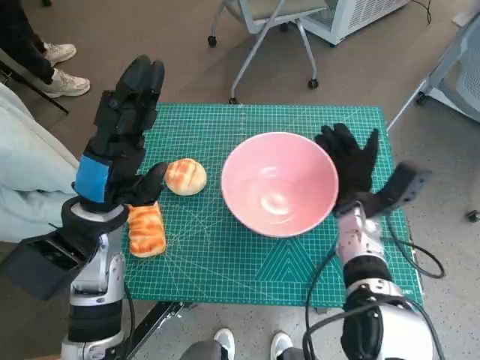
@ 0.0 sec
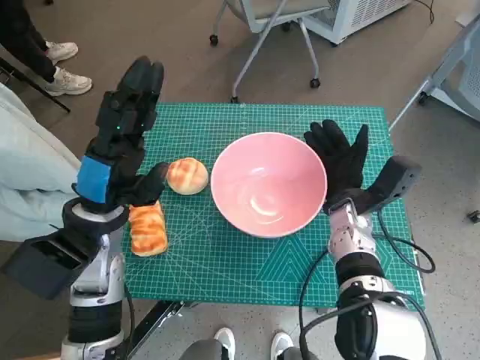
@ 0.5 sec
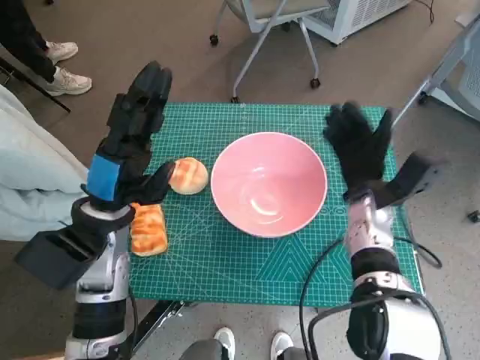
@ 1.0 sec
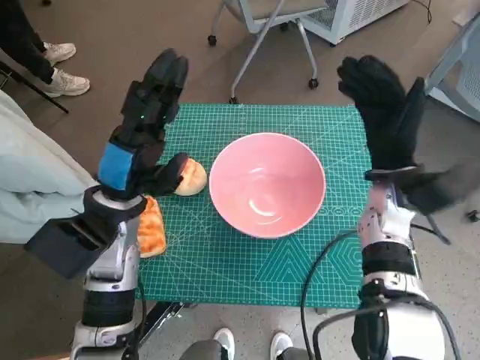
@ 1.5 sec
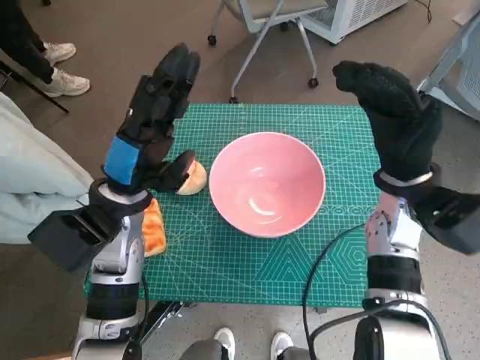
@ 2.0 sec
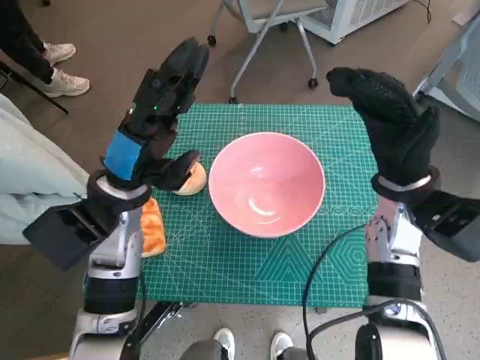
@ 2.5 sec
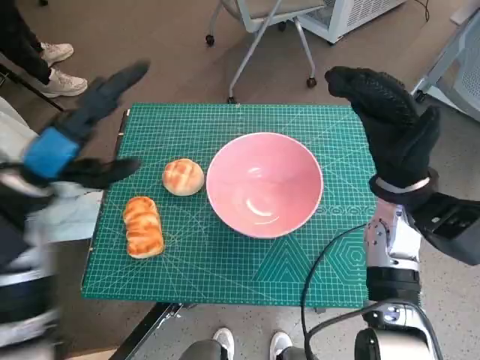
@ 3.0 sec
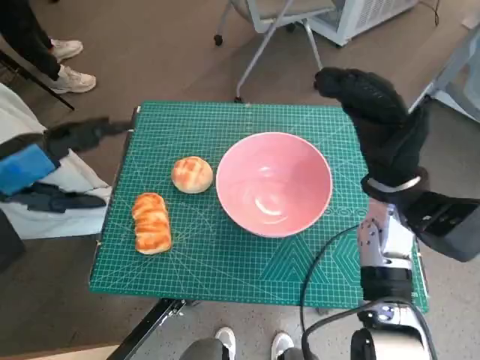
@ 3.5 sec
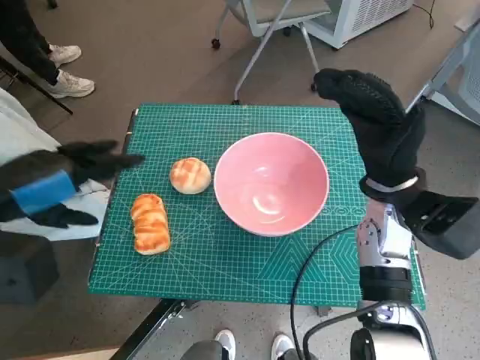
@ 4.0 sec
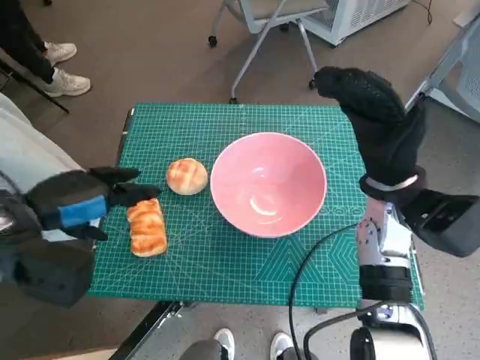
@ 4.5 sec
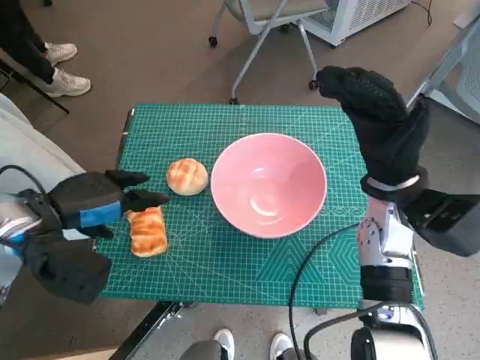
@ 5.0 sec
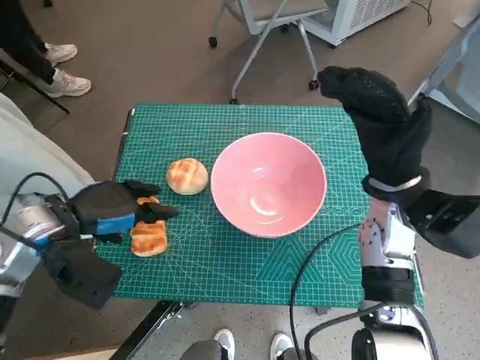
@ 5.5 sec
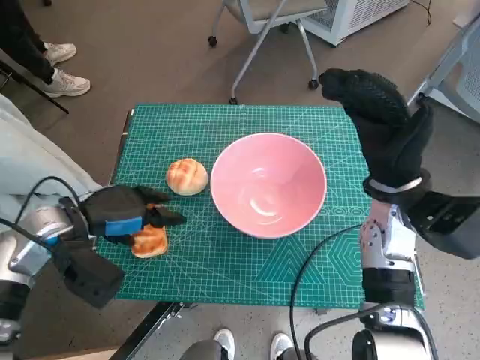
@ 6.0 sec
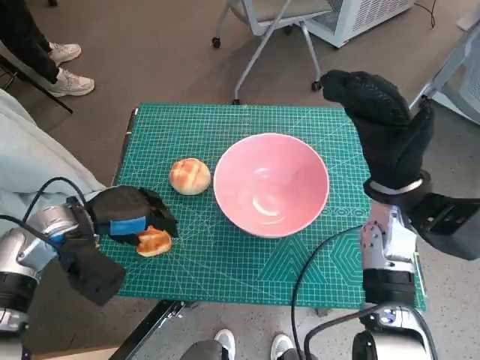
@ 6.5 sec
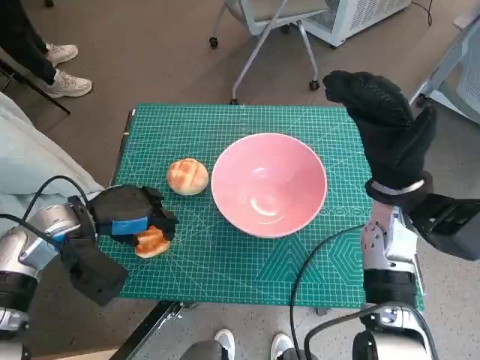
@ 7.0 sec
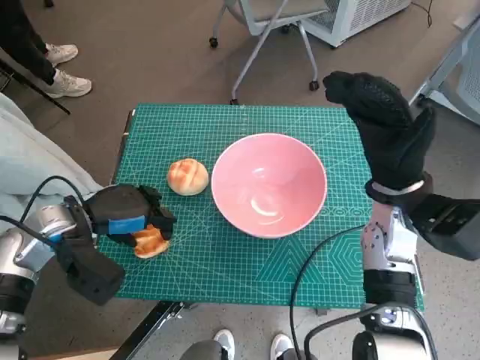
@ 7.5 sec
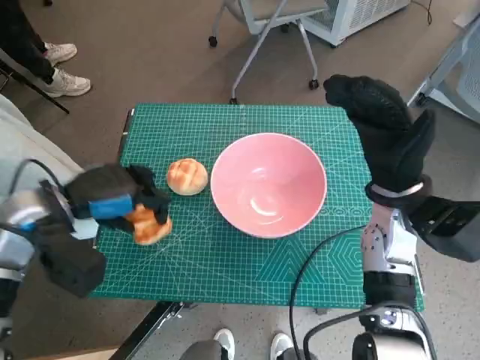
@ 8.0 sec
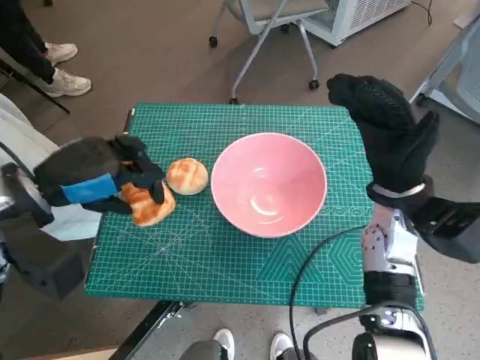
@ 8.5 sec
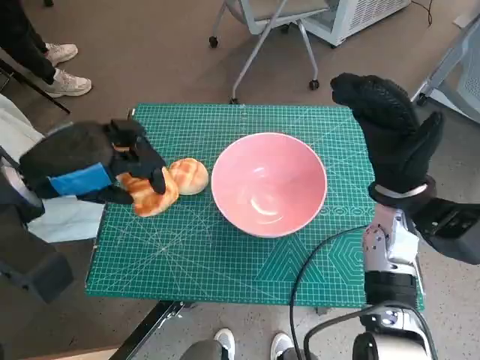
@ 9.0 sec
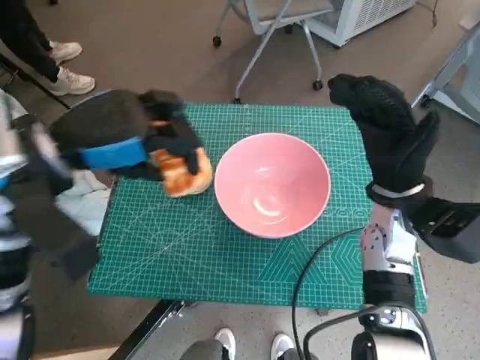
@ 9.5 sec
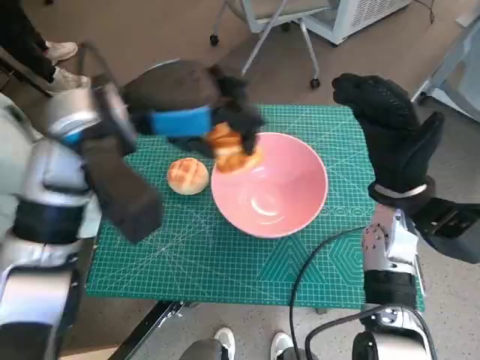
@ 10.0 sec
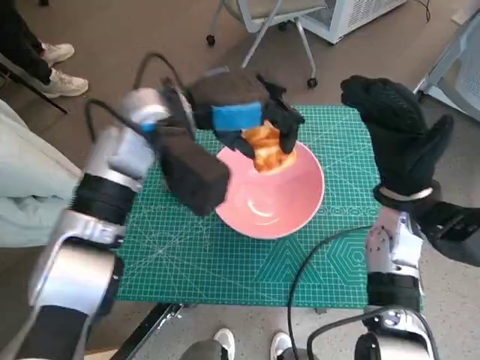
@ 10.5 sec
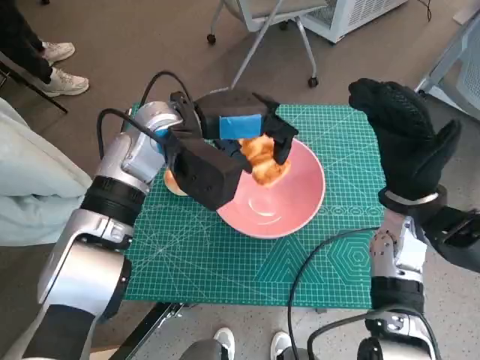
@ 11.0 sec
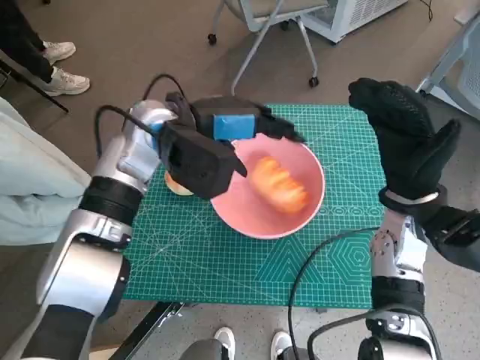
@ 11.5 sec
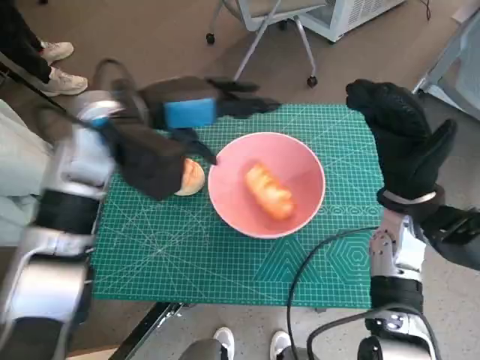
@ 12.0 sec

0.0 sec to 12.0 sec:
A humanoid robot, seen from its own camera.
Task of the whole recording: Push the bowl into the center of the table and put the bread into the bowl.
Step, 1.5 sec to 6.5 sec: Grasp the long bread with left hand.
Step, 7.0 sec to 11.5 sec: Place the long bread in pink bowl with left hand.
0.0 sec to 2.0 sec: The right hand travels upward by some 10 cm.
2.0 sec to 4.0 sec: The left hand moves to the left, upward and backward, roughly 15 cm.
4.0 sec to 6.0 sec: The left hand moves downward and forward, roughly 15 cm.
6.0 sec to 8.0 sec: The hands move only a little.
8.0 sec to 10.0 sec: The left hand is displaced upward and to the right by about 15 cm.

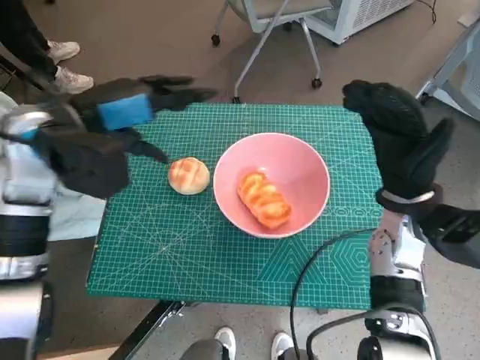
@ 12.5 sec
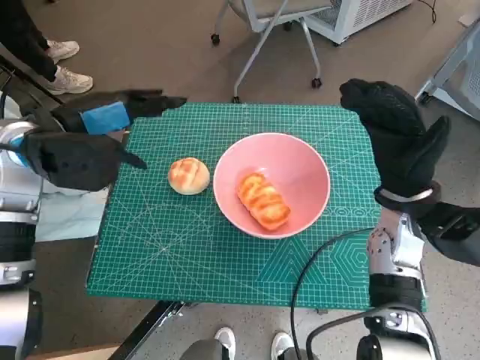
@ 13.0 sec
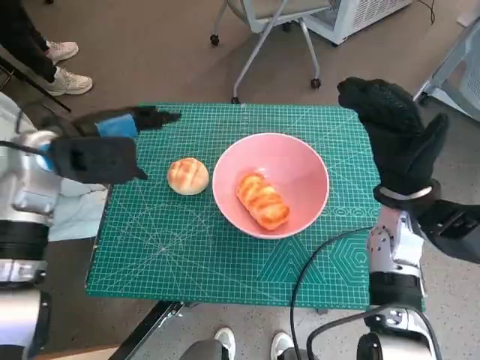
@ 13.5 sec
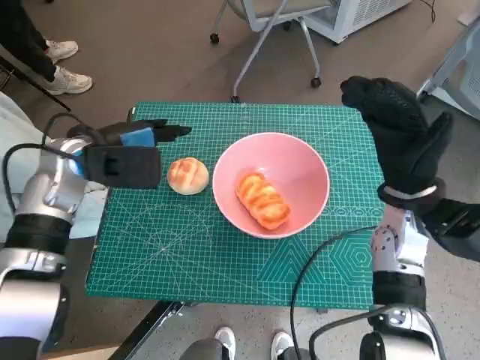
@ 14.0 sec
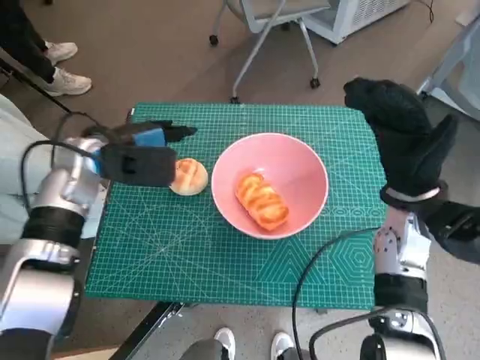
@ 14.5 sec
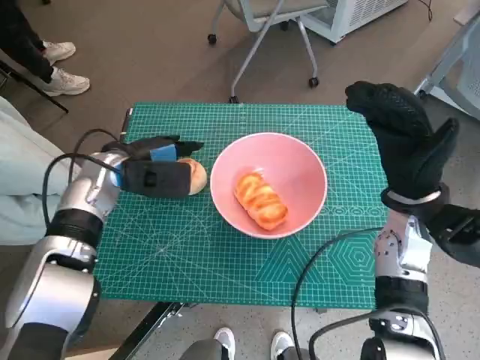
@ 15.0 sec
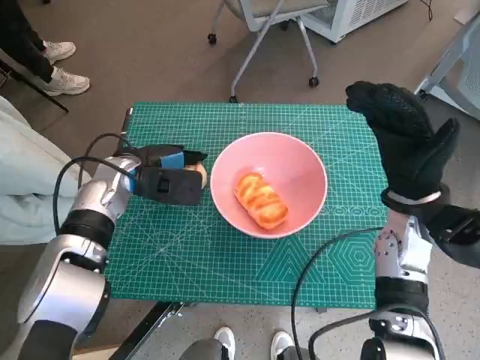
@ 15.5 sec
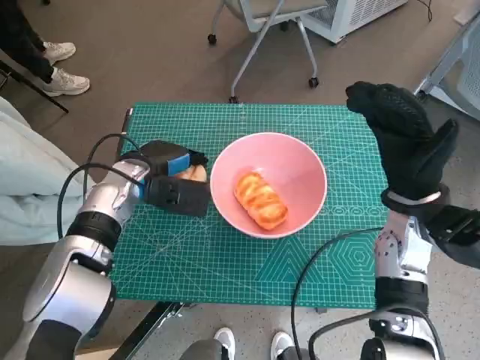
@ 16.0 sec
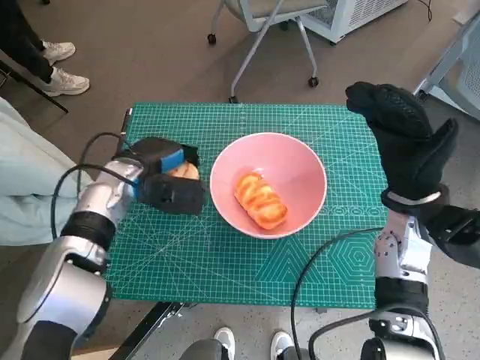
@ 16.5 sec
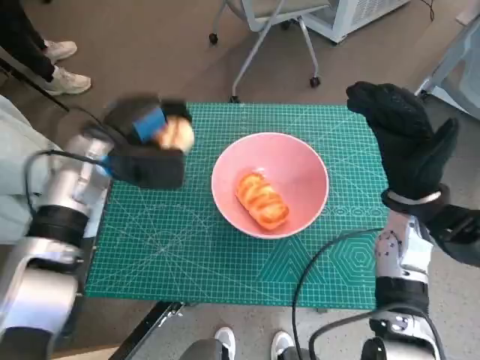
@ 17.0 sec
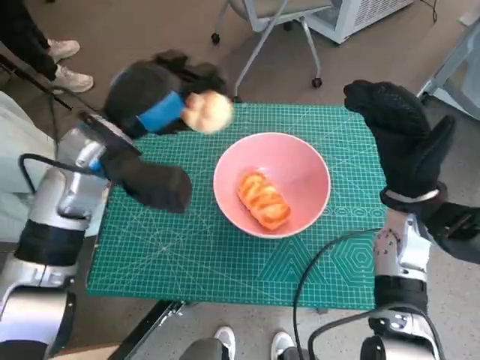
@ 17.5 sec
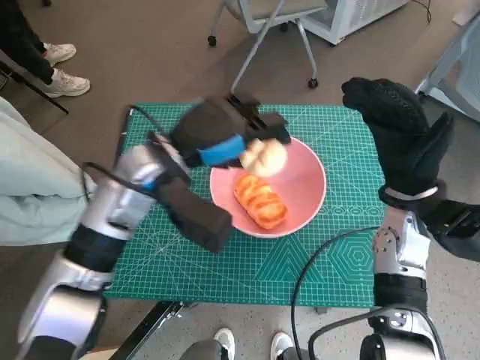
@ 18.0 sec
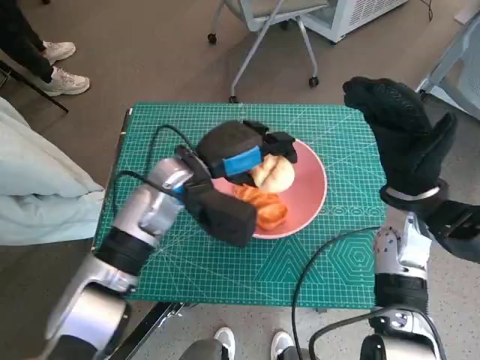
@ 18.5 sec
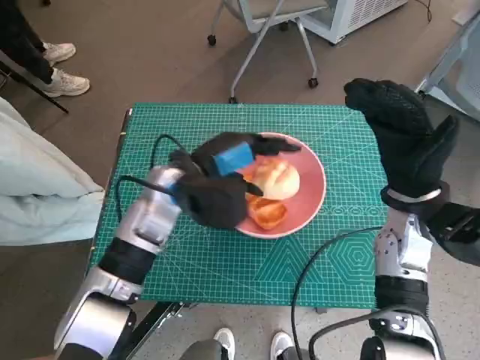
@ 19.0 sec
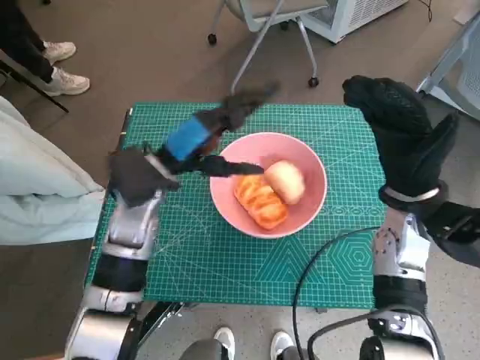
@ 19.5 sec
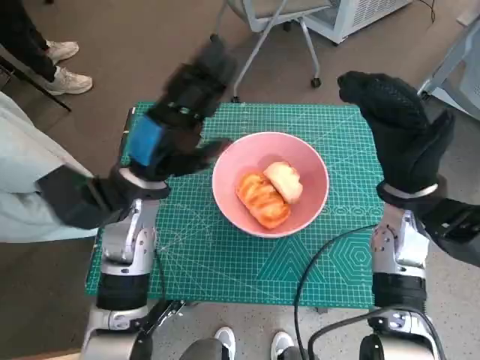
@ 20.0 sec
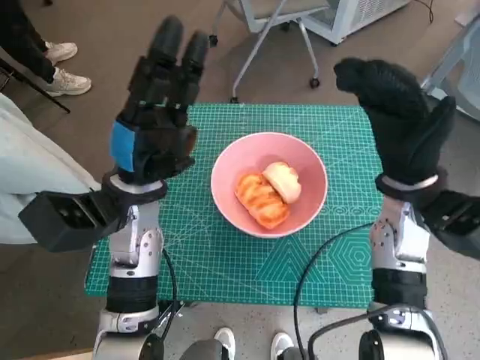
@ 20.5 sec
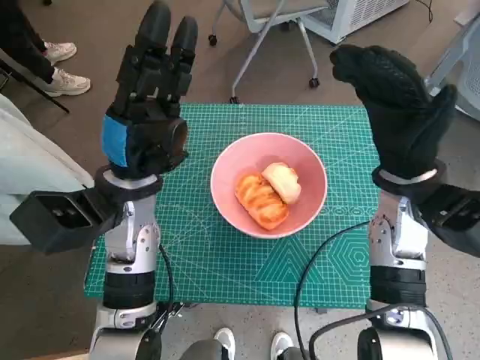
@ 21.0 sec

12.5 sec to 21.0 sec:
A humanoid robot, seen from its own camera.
Task of the whole recording: Push the bowl into the center of the table and put the bread into the bowl.
Step, 12.5 sec to 16.0 sec: Grasp the round bread with left hand.
Step, 17.0 sec to 19.5 sec: Place the round bread in pink bowl with left hand.
12.5 sec to 14.5 sec: The left hand moves downward, roughly 10 cm.
14.5 sec to 16.5 sec: The left hand goes approximately 5 cm downward.
16.5 sec to 19.0 sec: The left hand goes roughly 10 cm to the right.
19.0 sec to 21.0 sec: The left hand moves roughly 5 cm.
